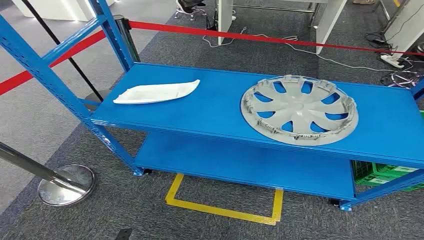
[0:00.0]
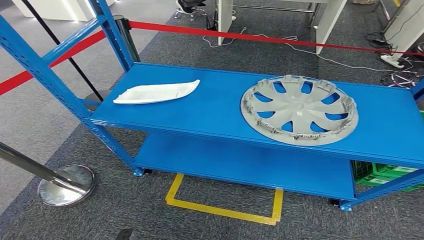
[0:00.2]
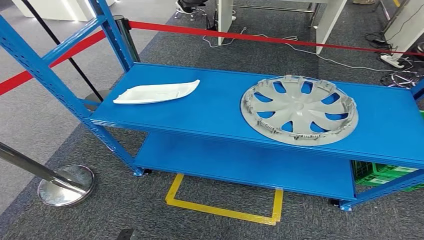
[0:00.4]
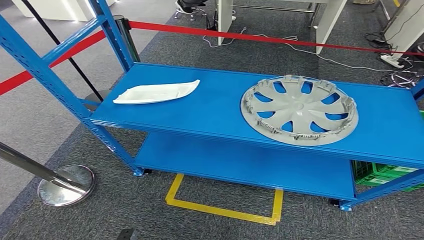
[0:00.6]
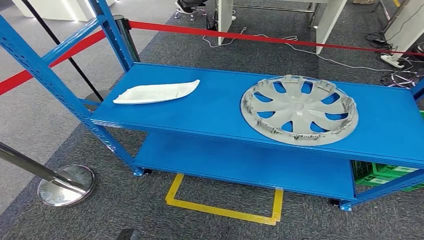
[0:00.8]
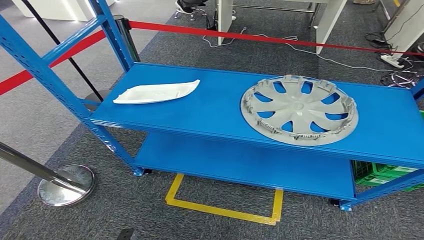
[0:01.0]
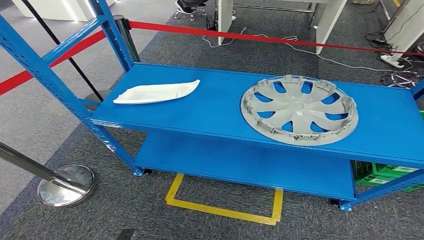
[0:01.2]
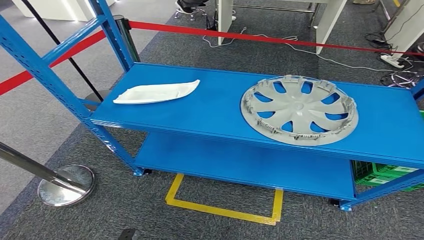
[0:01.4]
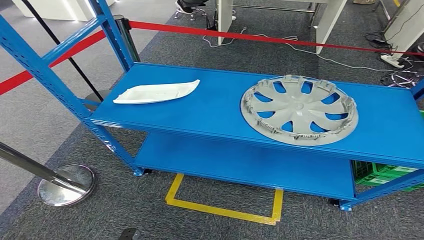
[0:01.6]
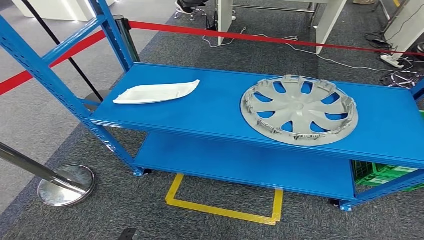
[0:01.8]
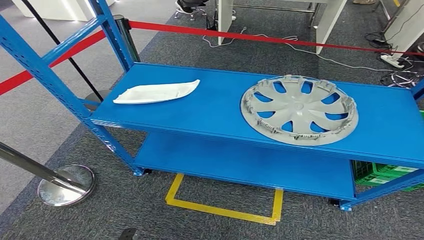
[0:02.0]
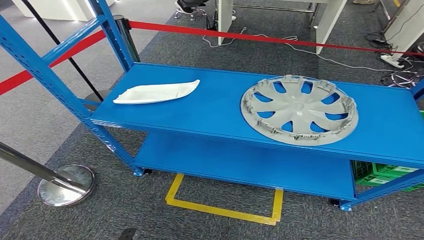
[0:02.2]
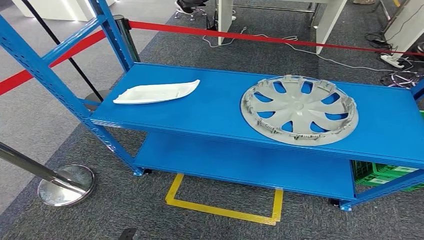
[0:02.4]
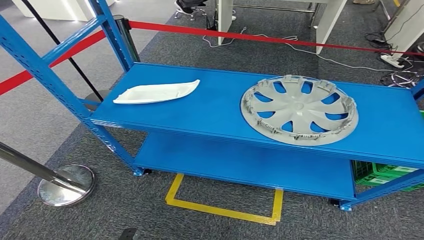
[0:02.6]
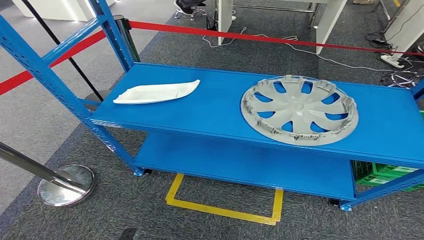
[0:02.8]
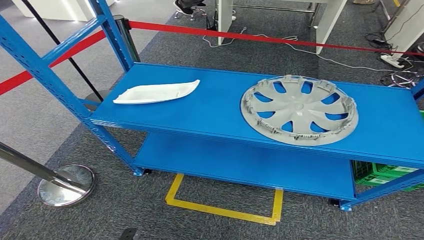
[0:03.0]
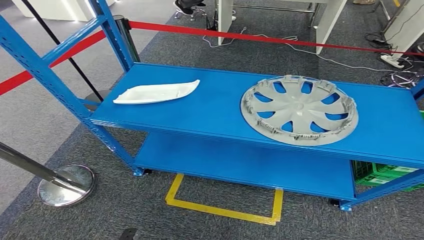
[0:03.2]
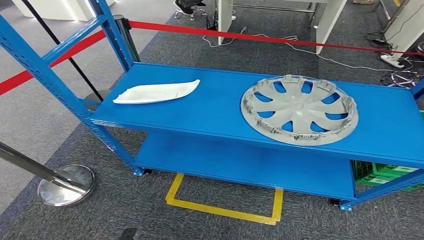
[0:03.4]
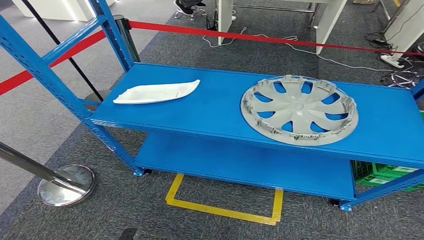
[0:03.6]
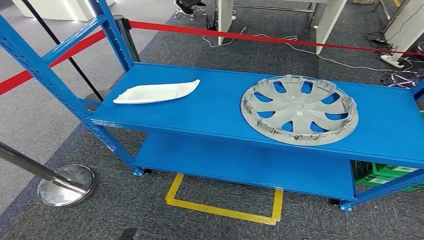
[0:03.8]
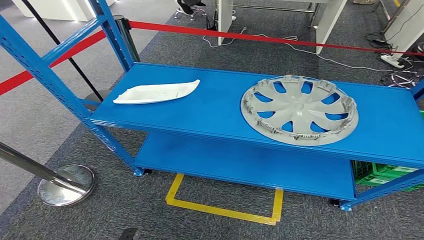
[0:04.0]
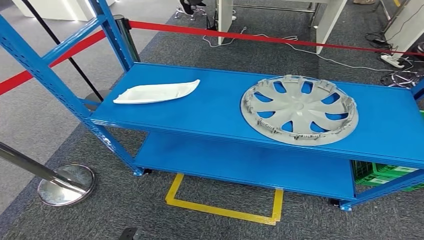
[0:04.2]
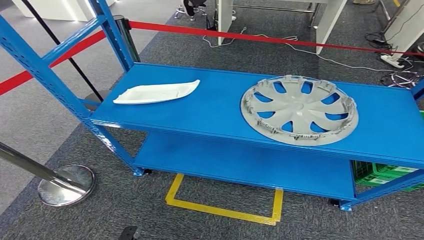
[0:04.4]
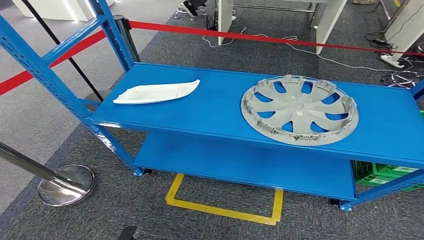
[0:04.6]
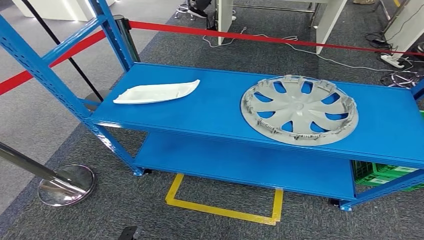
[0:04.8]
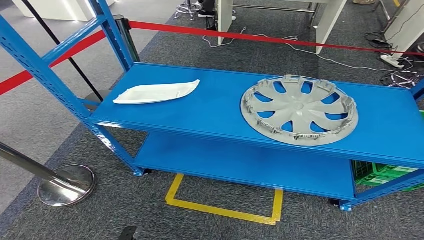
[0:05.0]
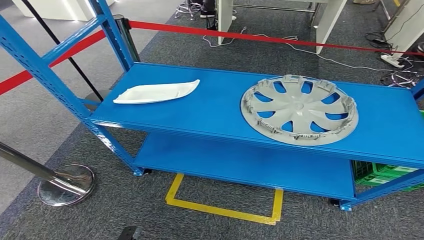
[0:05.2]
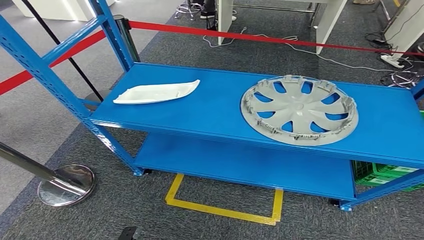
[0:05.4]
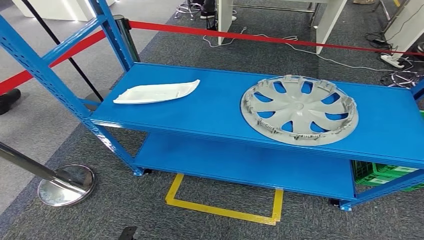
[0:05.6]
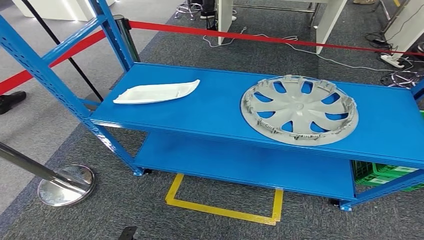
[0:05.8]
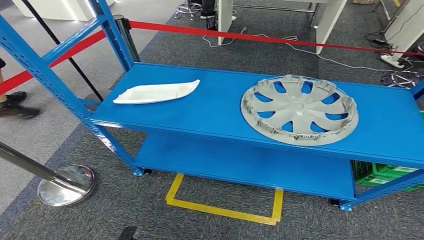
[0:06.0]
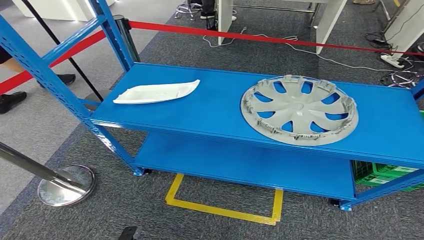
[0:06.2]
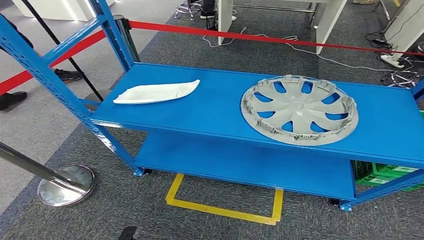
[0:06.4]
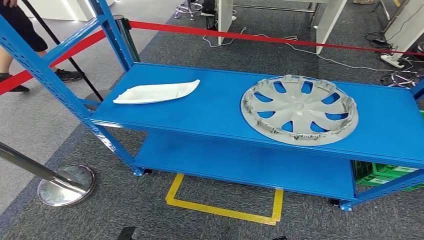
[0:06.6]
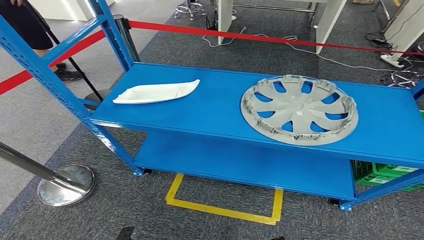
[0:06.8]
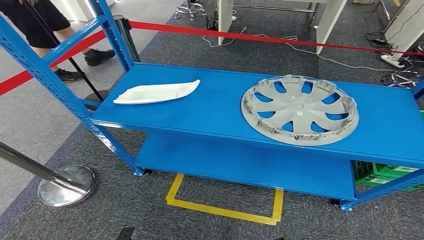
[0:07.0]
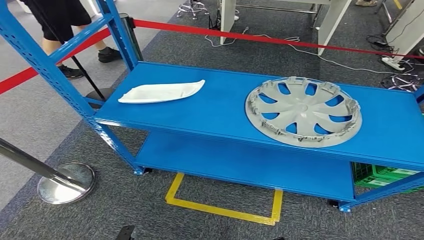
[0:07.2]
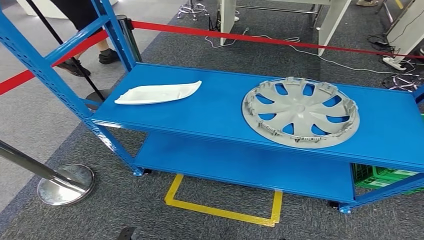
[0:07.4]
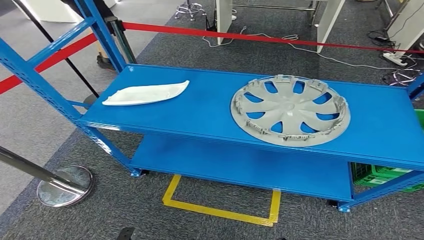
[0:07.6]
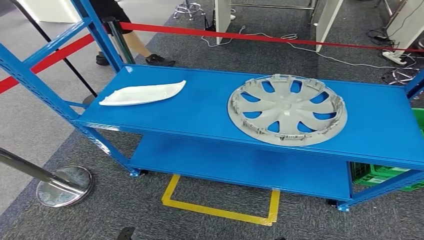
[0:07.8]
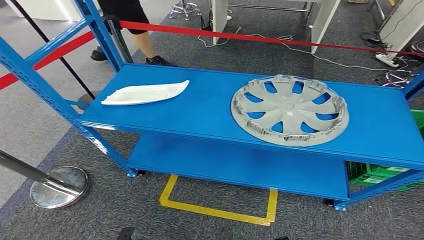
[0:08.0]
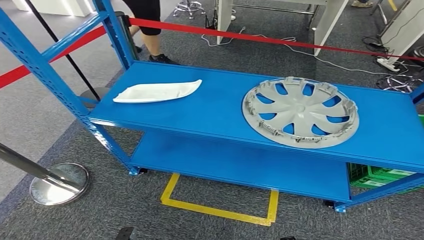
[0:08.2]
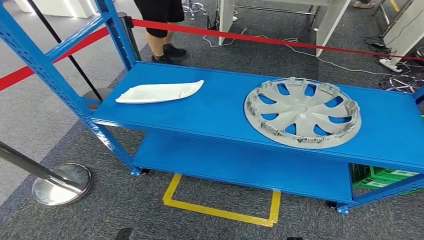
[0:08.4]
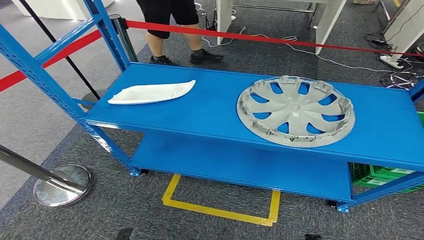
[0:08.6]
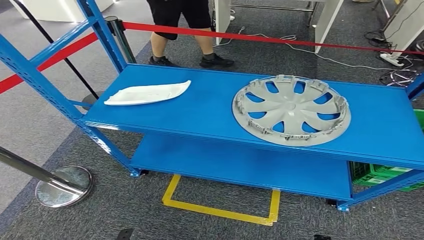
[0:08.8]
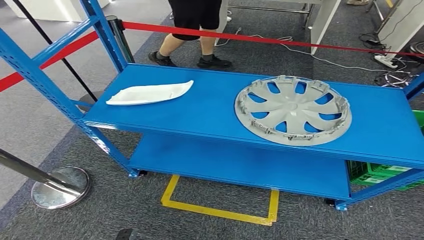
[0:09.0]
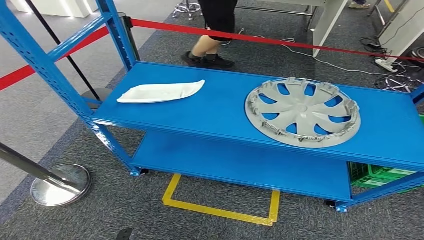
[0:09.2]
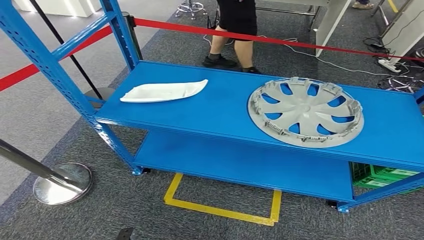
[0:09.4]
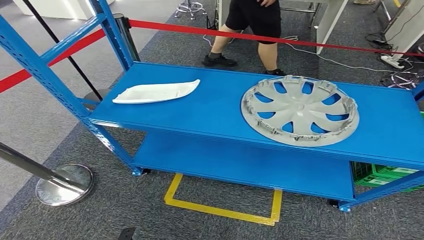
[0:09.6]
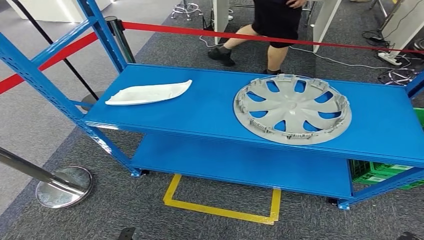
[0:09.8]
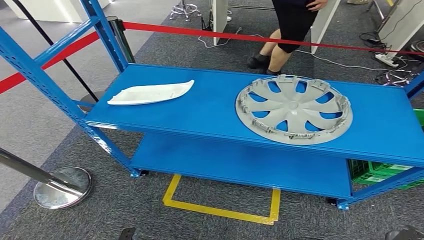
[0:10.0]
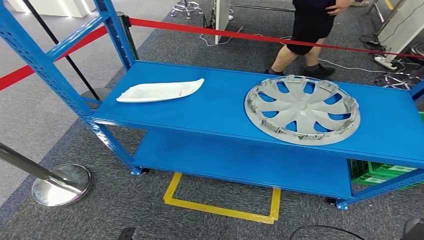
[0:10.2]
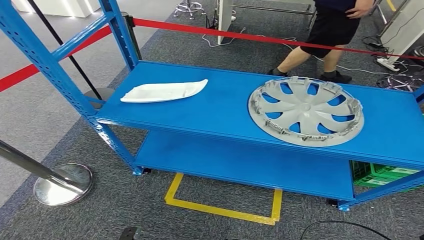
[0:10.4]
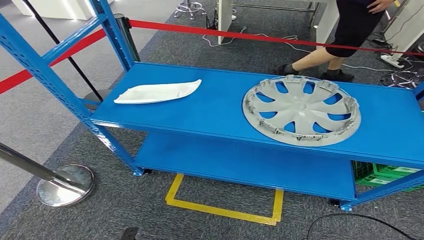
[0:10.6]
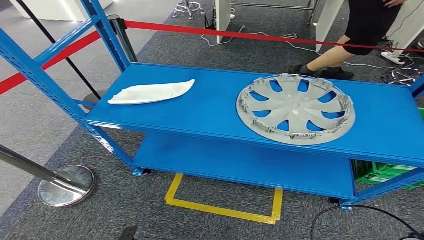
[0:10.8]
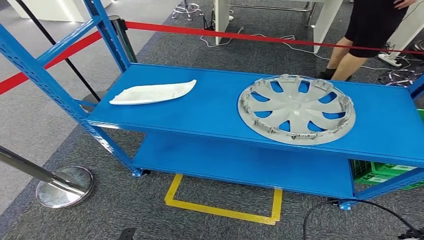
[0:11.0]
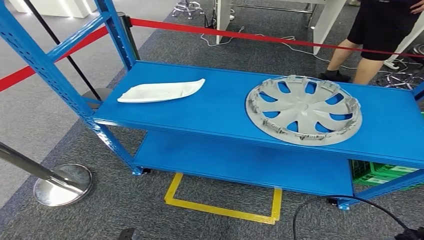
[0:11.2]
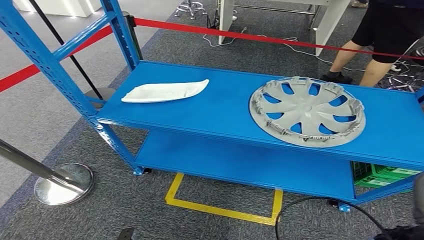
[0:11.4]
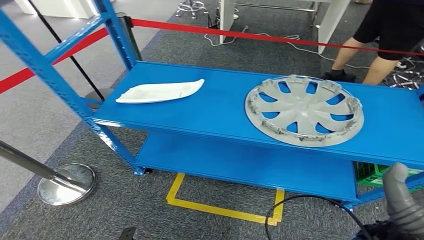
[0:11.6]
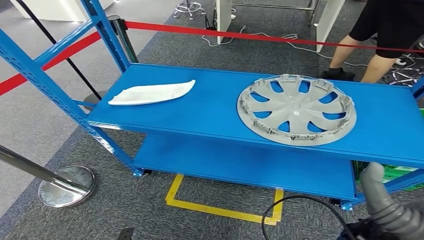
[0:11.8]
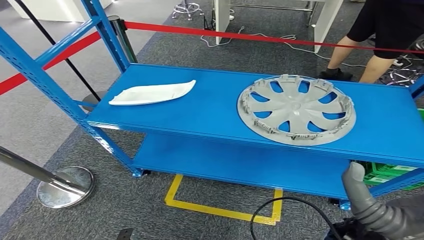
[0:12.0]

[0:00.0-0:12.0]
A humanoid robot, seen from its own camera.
0:01.6 to 0:06.0: Neither hand changes place.
0:06.0 to 0:07.6: The hands make only small movements.

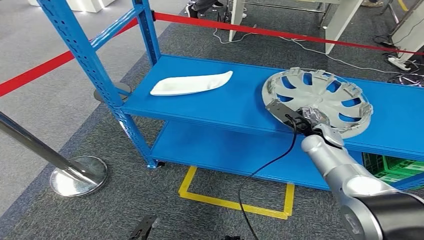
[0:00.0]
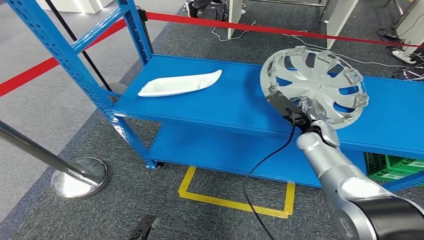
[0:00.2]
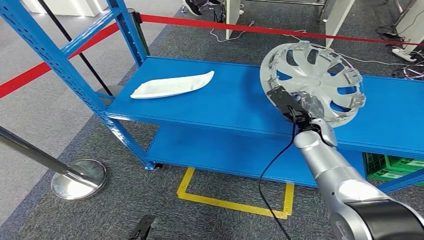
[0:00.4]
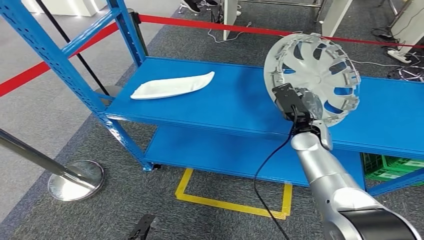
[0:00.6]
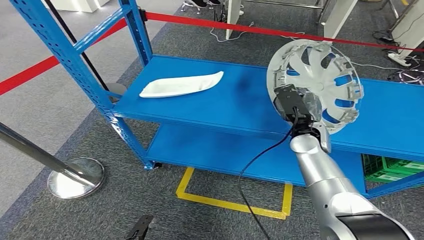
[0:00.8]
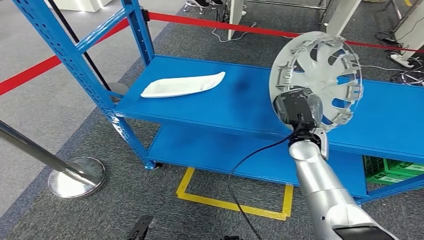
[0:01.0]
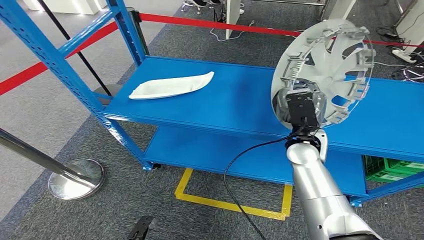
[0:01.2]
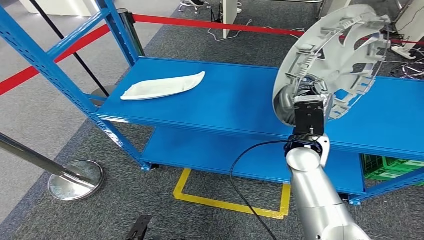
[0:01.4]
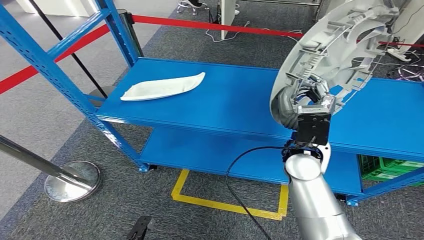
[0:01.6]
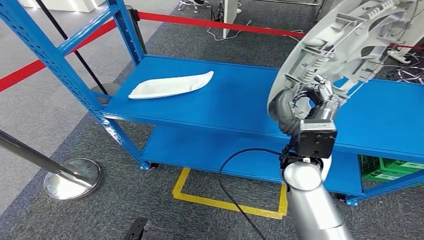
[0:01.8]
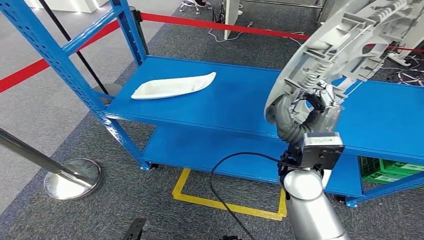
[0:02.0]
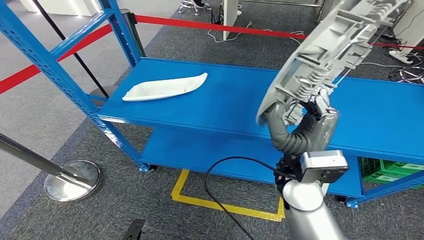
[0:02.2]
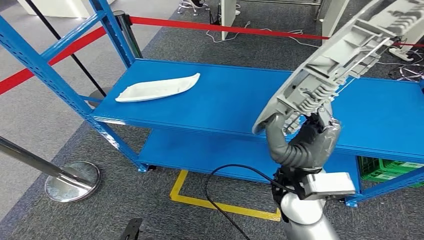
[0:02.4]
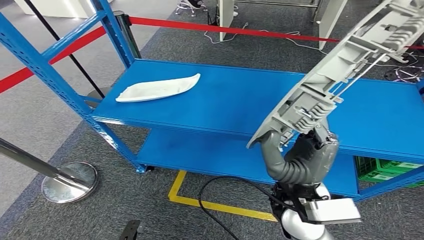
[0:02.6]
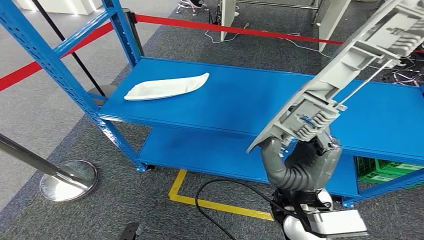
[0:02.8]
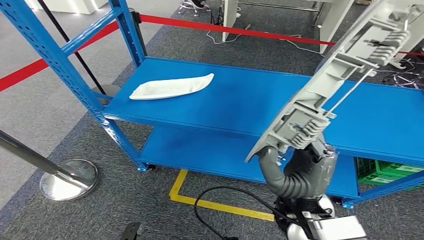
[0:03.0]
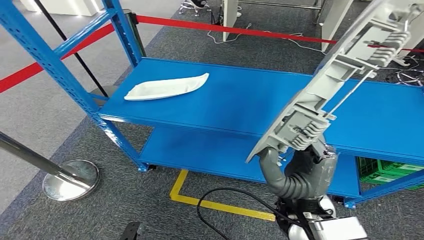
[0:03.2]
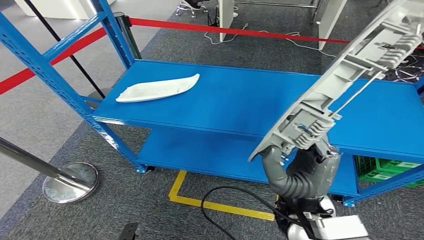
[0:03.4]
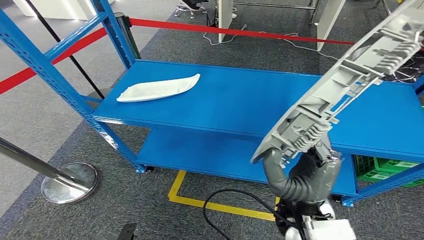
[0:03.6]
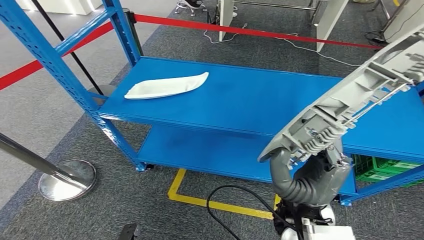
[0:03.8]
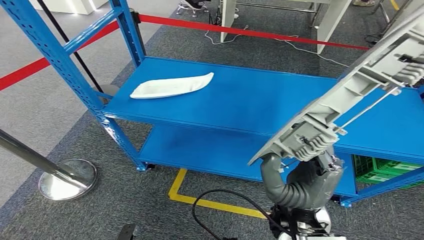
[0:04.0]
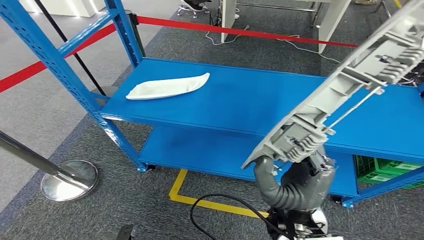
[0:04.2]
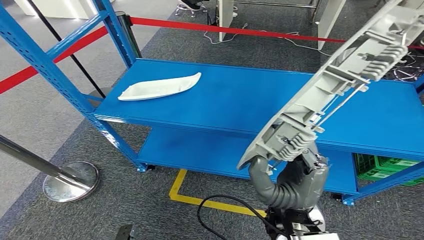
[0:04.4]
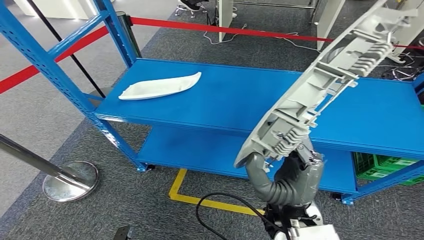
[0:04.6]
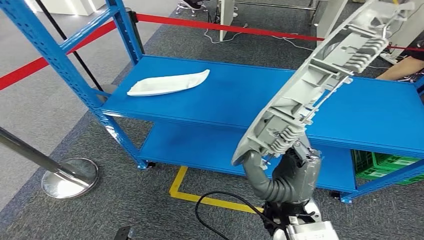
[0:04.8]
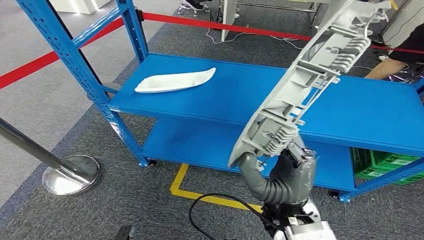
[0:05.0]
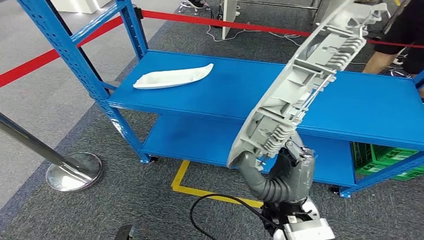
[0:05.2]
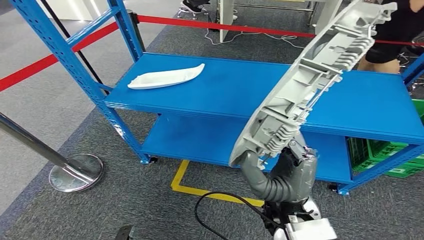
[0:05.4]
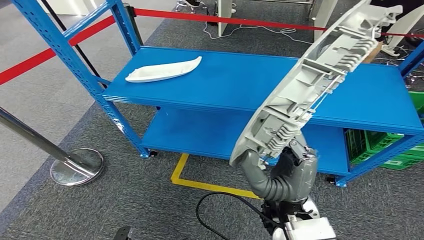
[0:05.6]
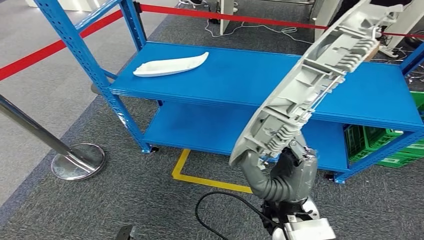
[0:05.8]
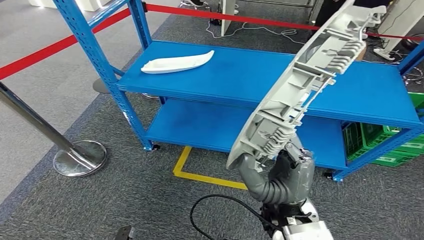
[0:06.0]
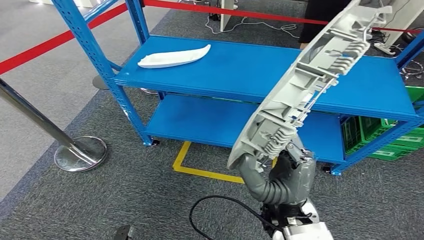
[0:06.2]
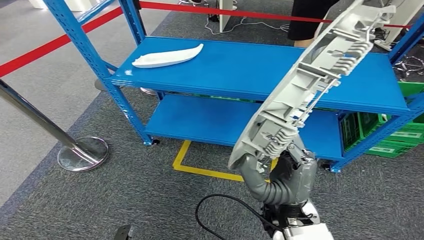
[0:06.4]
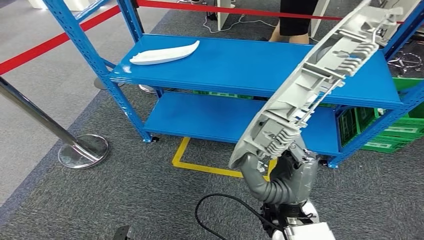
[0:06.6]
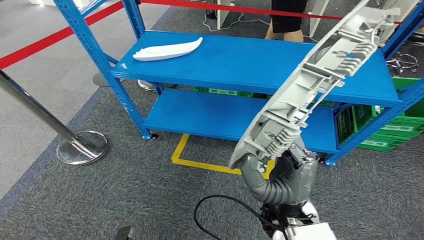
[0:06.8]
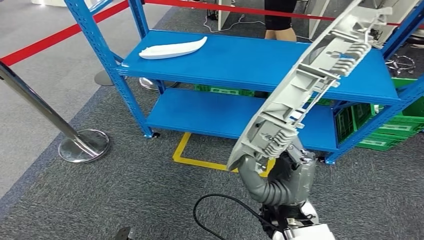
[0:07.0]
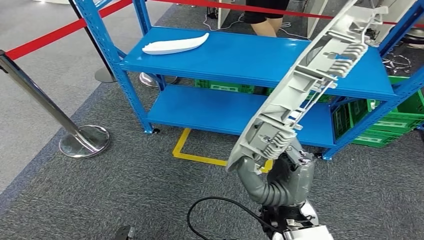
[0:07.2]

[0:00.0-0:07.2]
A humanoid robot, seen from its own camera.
Step, 0:00.0 to 0:03.4: Pick up the small component from the shelf.
